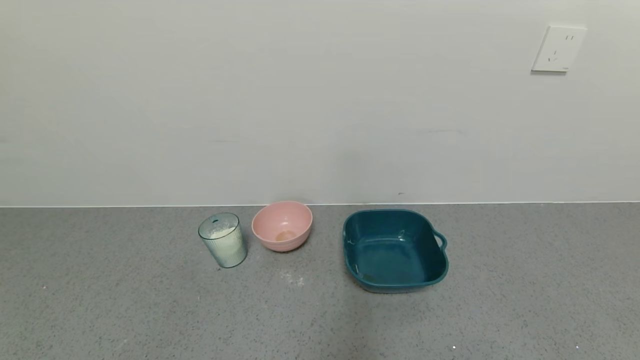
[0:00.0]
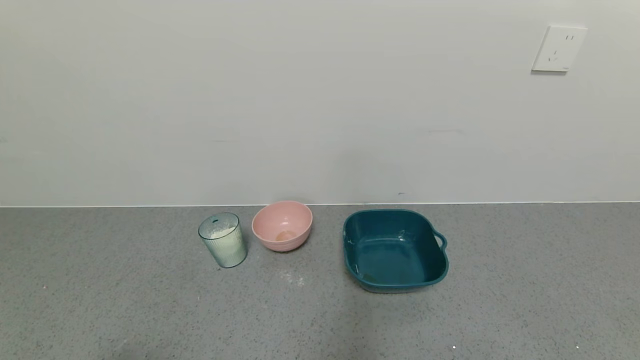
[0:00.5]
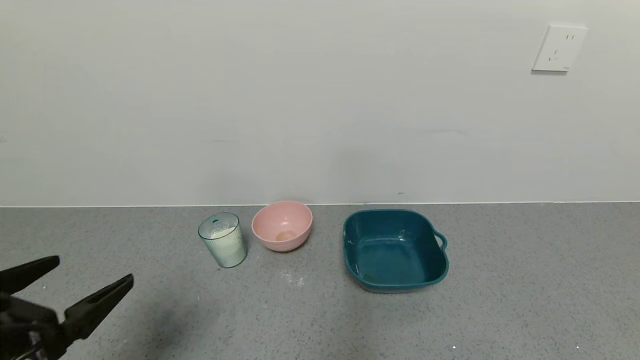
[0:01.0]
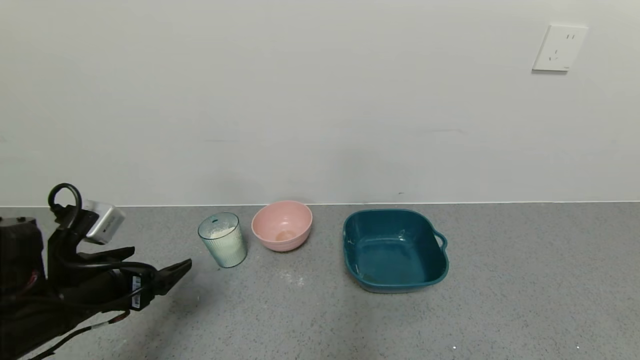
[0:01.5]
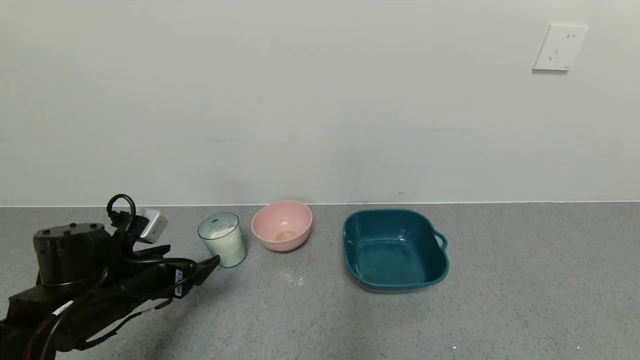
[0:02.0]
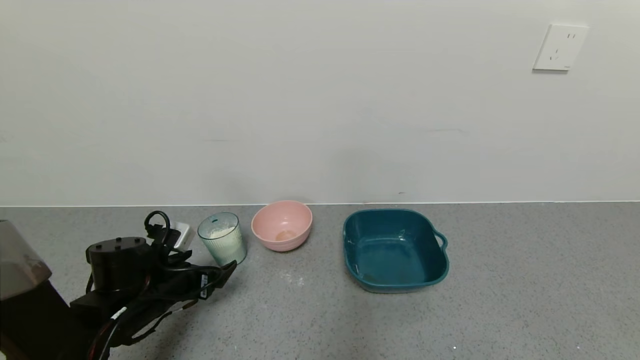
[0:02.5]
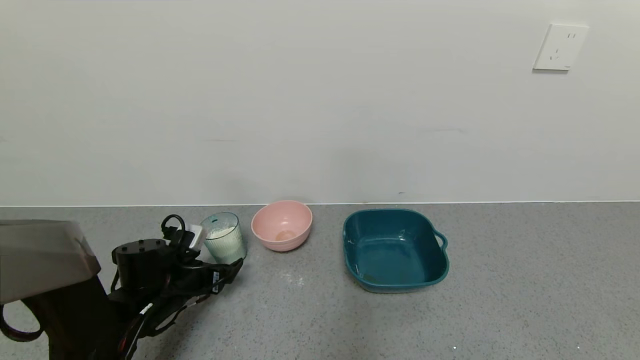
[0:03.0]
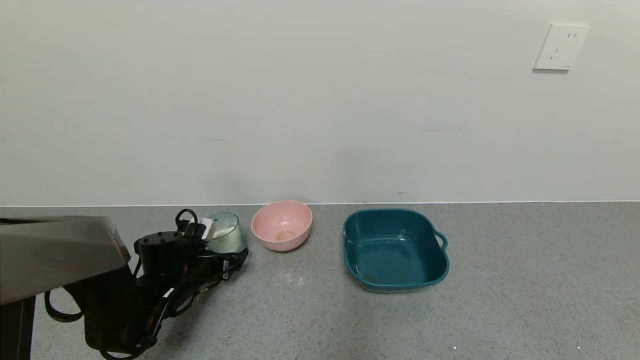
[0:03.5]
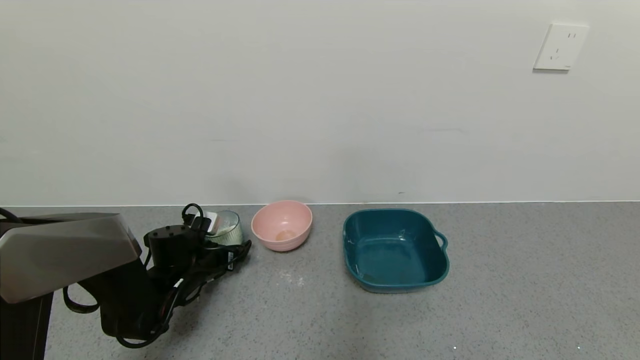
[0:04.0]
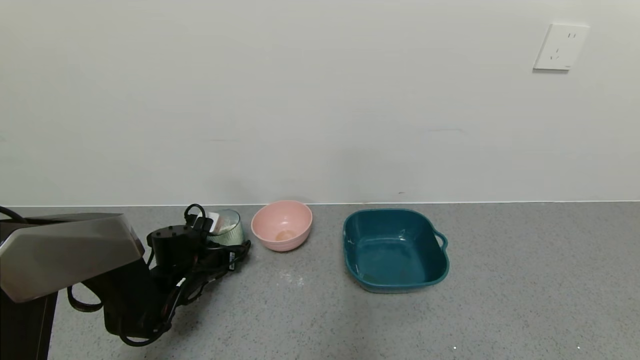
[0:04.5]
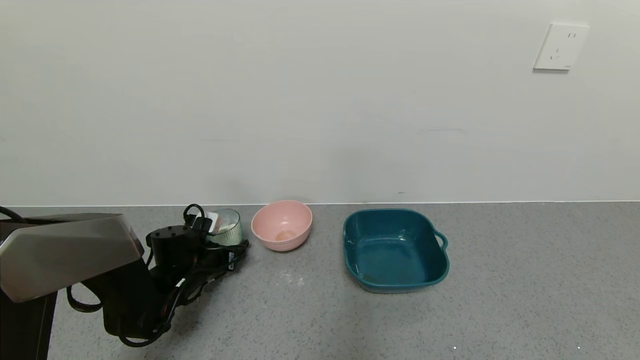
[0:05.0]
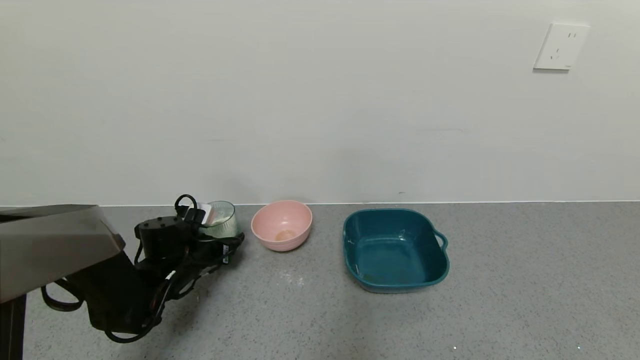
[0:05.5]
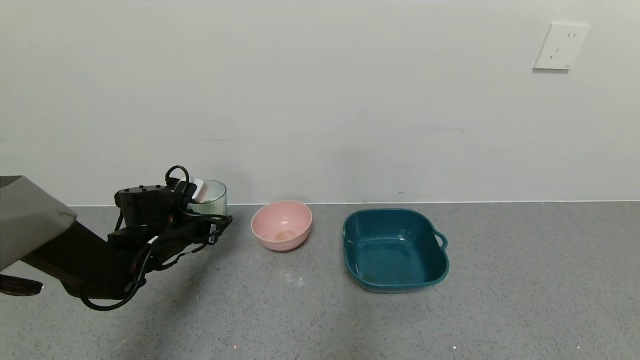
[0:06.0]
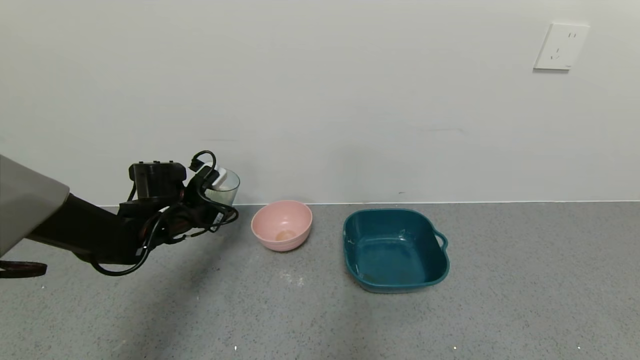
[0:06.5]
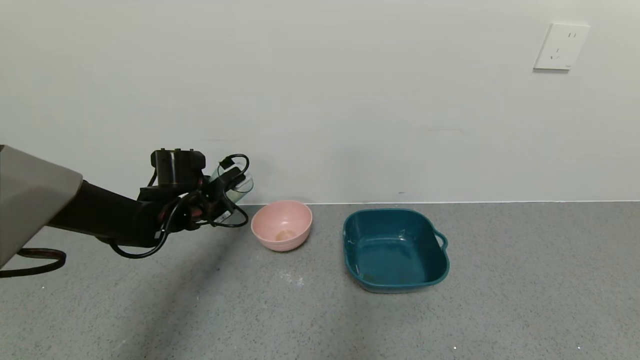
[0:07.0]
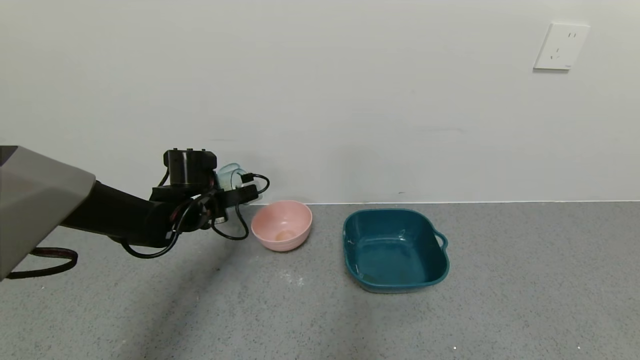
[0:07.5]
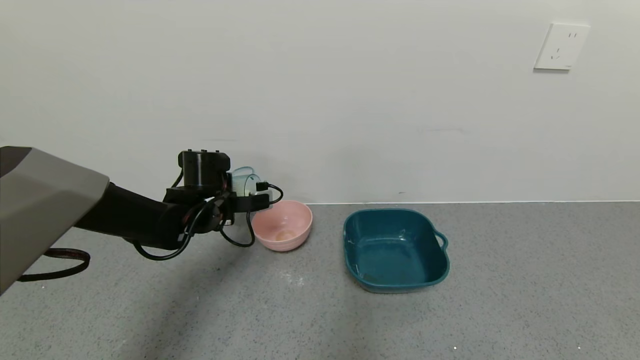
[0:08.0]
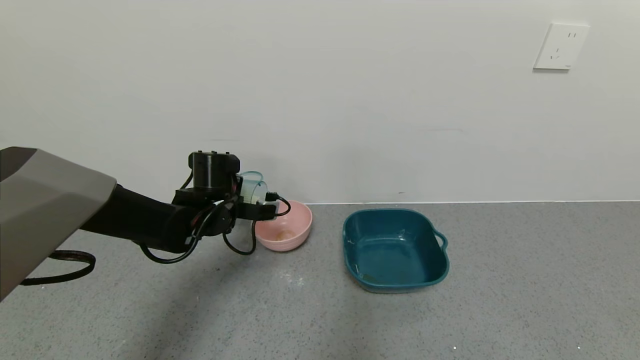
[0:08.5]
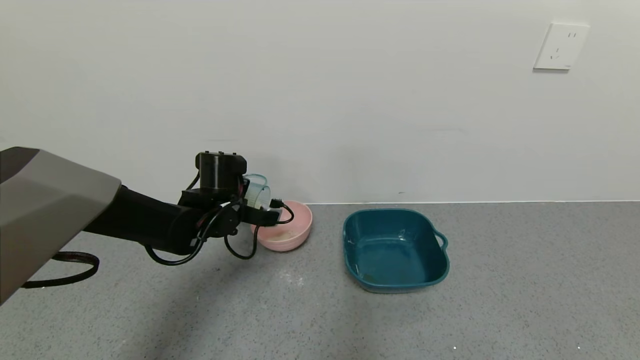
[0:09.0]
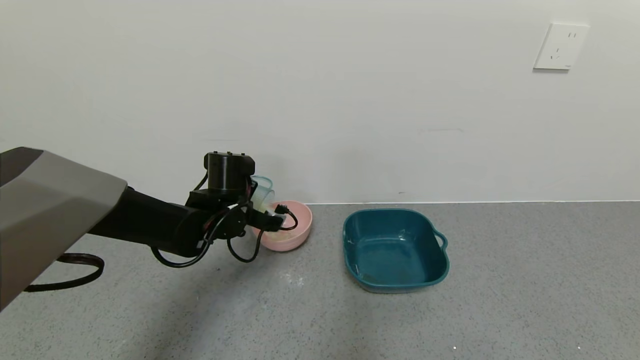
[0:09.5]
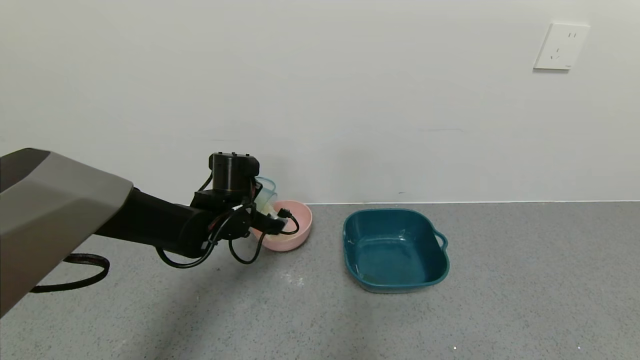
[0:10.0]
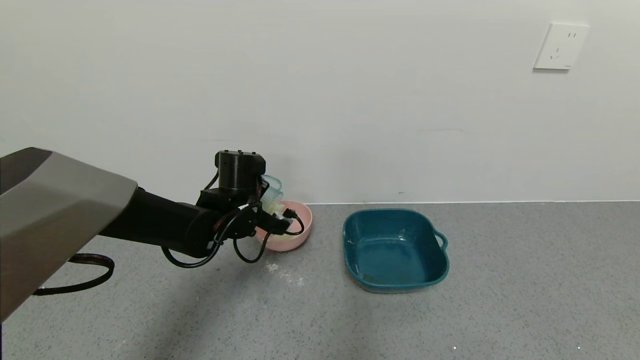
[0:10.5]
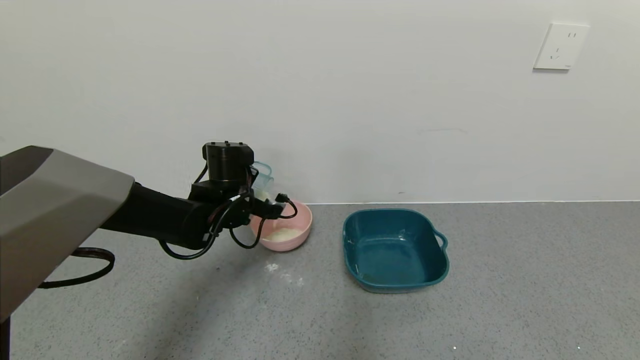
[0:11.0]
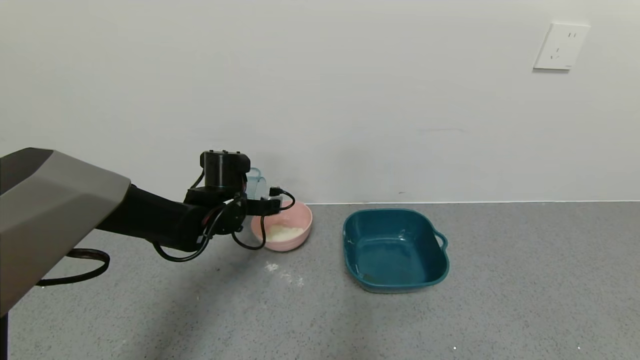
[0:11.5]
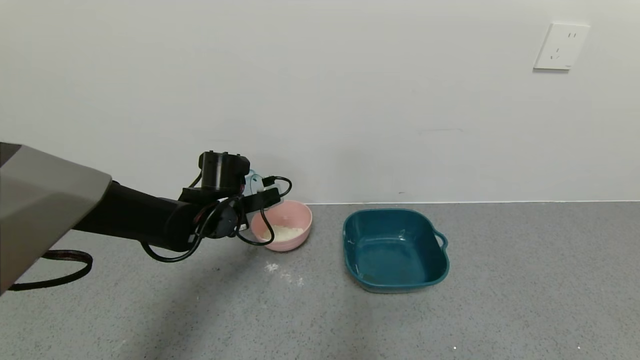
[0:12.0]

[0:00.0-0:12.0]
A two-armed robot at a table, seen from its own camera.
Task of the whole recording: use a gripper to pick up the cup and pour the powder into a bowl or tray.
Step, 0:00.0 to 0:04.5: Grasp the glass of powder with the left gripper.
Step, 0:05.0 to 0:12.0: Pour the powder into the pink bowl with the left gripper.
0:00.0 to 0:02.0: The left gripper travels forward by approximately 25 cm.
0:02.0 to 0:04.0: The left gripper is displaced forward and downward by about 15 cm.
0:04.0 to 0:06.0: The left gripper shifts roughly 5 cm upward, and closes.
0:06.0 to 0:08.0: The left gripper moves to the right, some 5 cm.

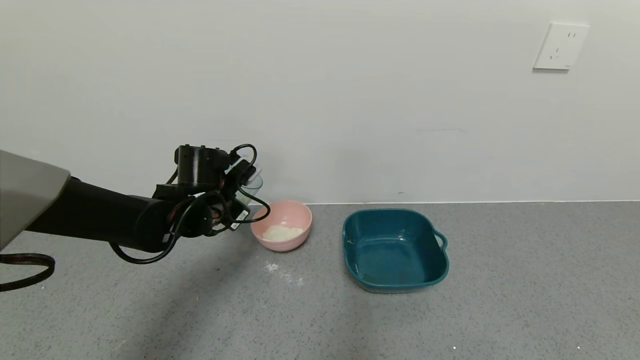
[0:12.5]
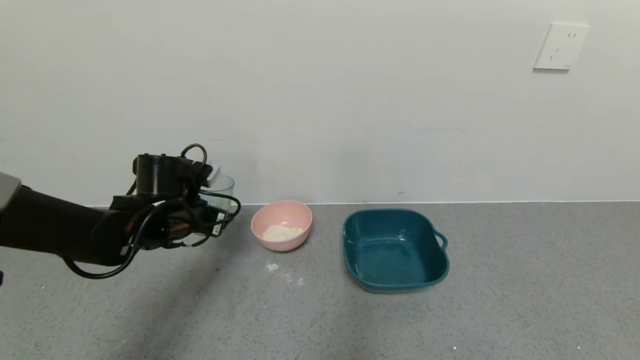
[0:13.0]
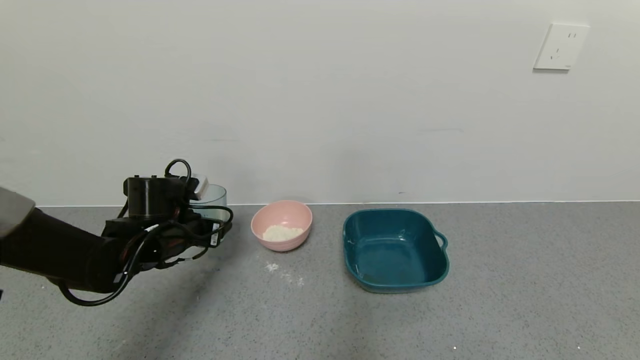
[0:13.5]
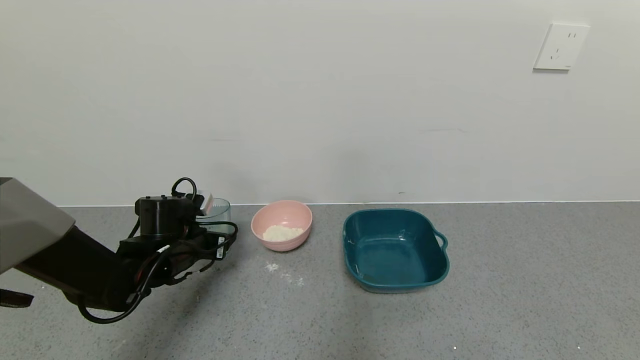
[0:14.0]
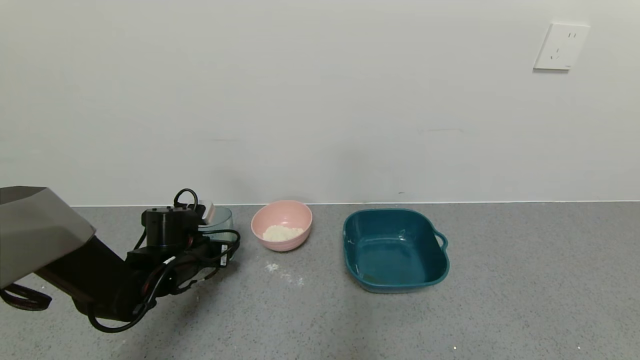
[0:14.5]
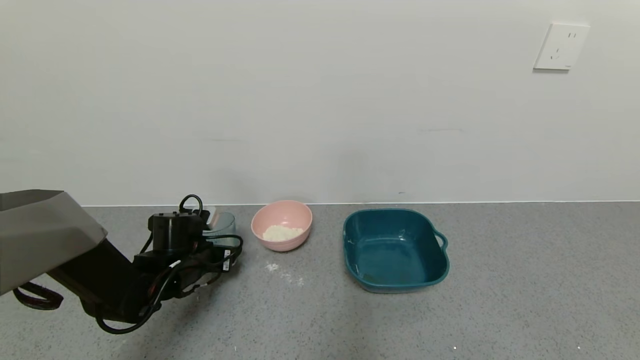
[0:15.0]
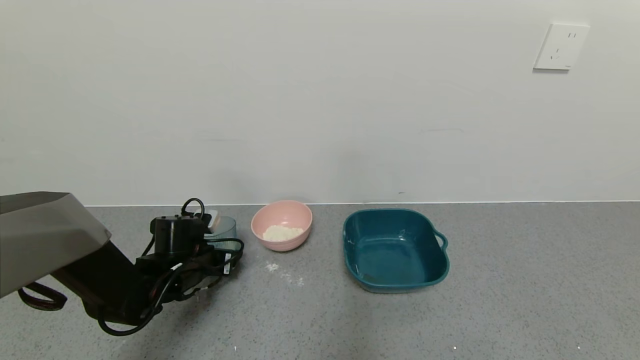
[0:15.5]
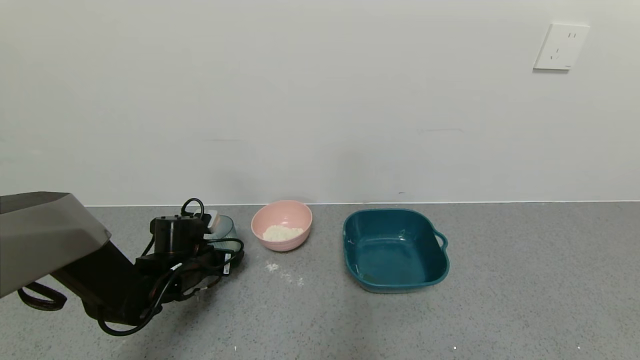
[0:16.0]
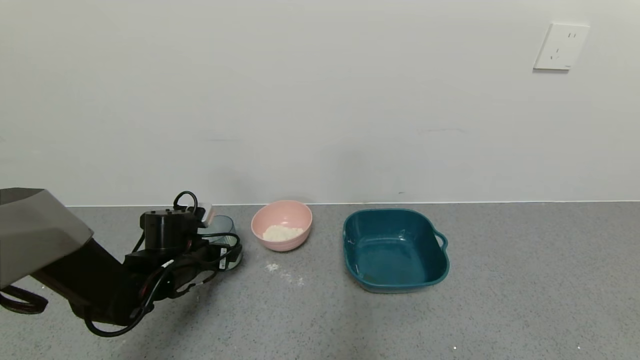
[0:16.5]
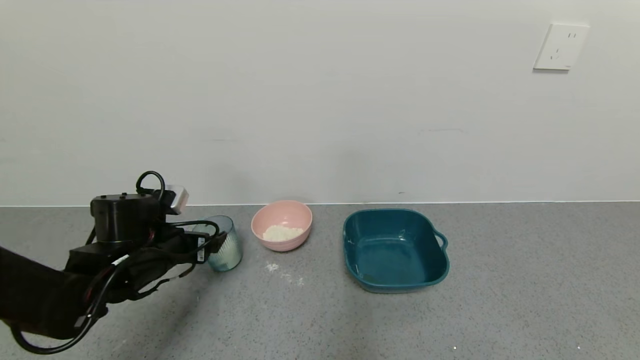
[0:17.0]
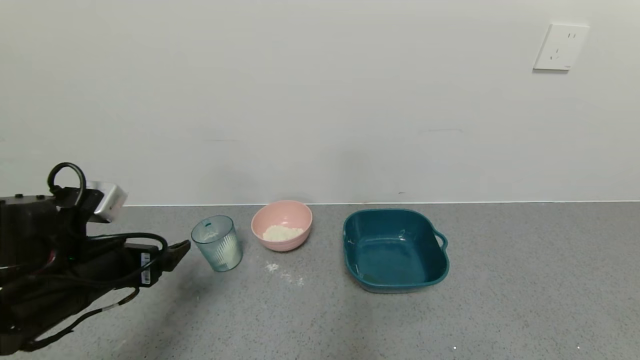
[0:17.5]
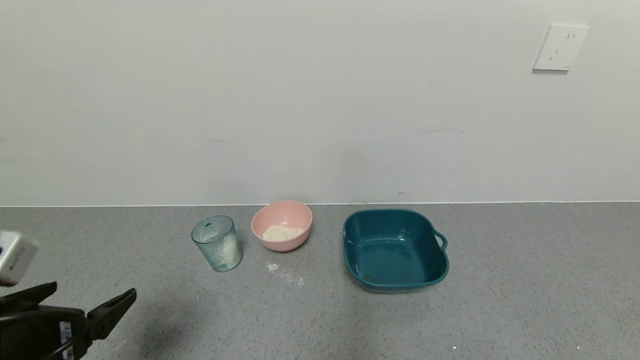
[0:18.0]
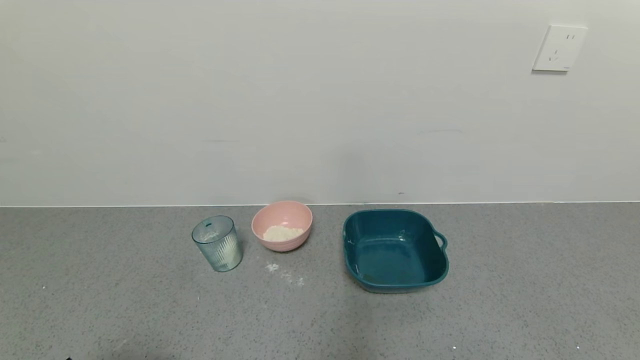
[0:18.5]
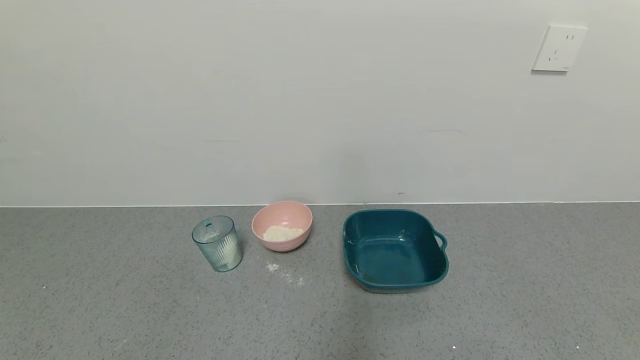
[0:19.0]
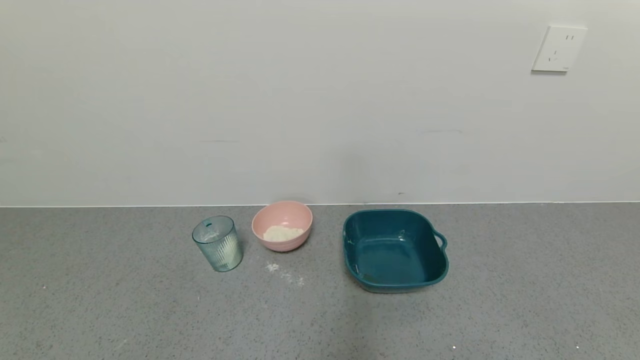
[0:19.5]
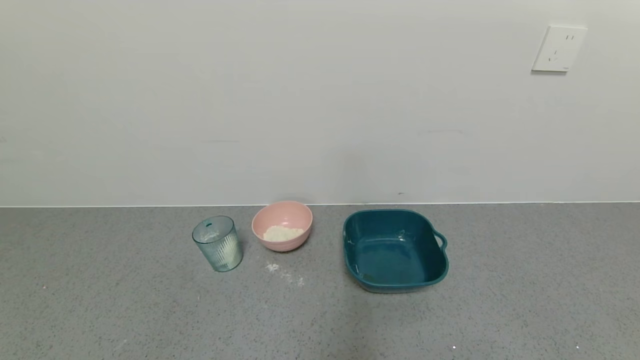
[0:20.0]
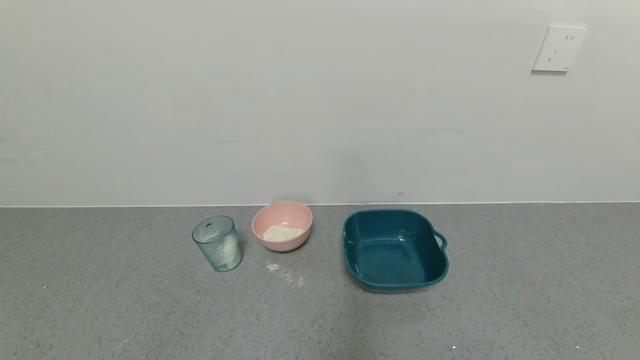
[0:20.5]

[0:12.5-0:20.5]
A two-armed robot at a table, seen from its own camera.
Task of the whole recording: use a gripper to pick up the cup and pour the powder into a bowl or tray.
Step, 0:12.5 to 0:17.0: Place the glass cup down with the left gripper.
0:12.5 to 0:14.5: The left gripper travels downward and to the left by roughly 10 cm.
0:14.5 to 0:16.5: The left gripper opens its fingers.
0:16.5 to 0:18.5: The left gripper heads backward, covering approximately 30 cm.
